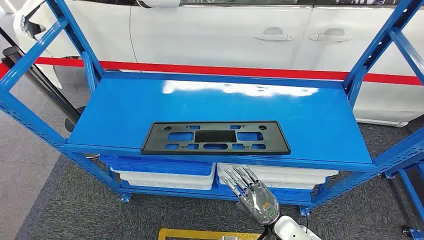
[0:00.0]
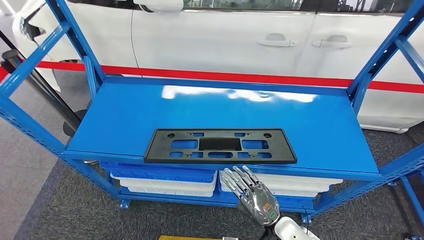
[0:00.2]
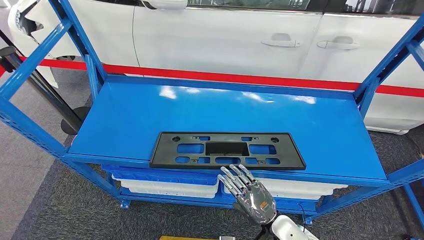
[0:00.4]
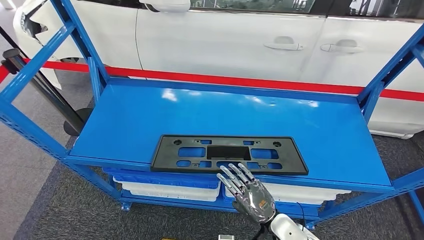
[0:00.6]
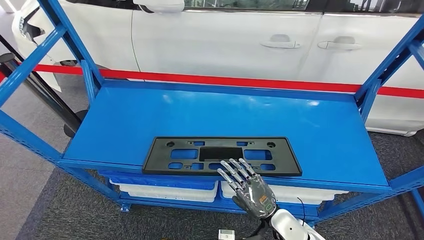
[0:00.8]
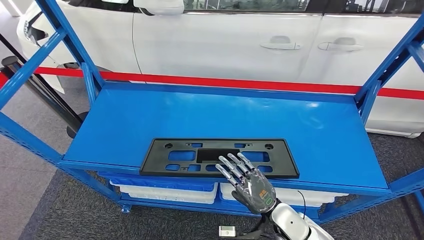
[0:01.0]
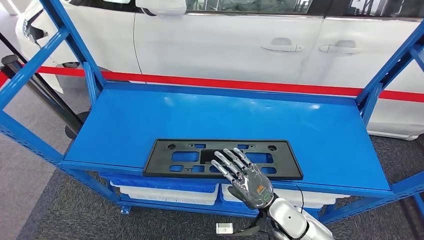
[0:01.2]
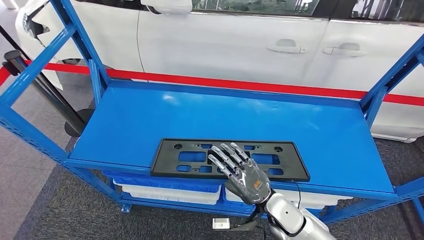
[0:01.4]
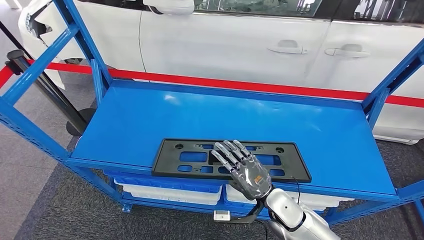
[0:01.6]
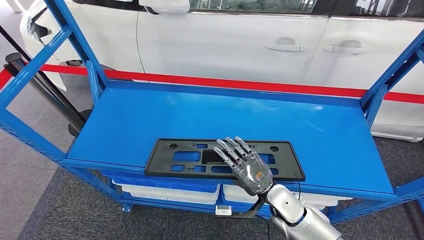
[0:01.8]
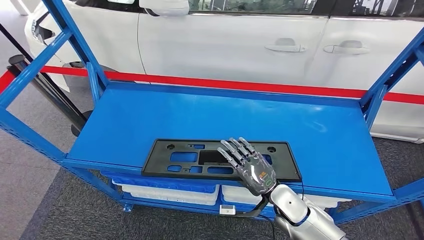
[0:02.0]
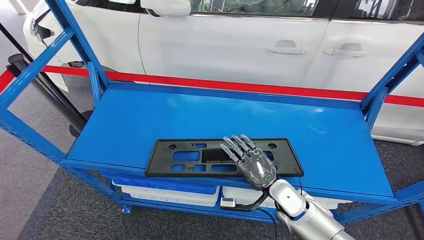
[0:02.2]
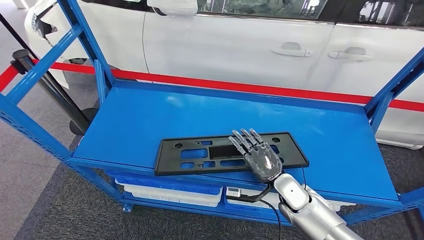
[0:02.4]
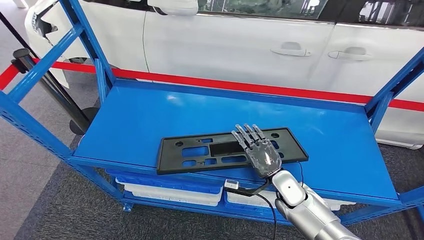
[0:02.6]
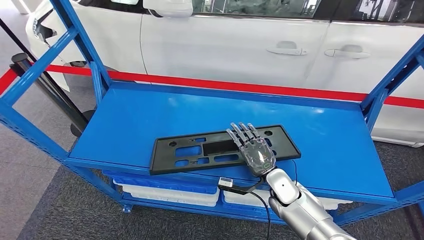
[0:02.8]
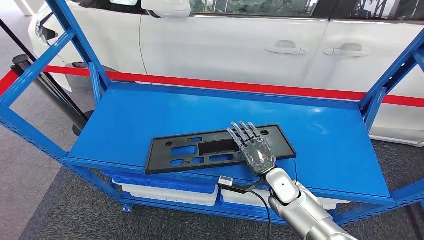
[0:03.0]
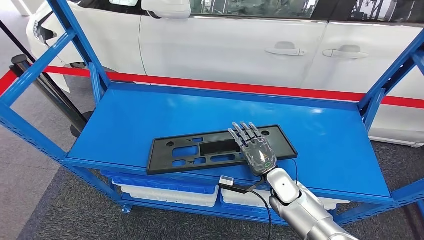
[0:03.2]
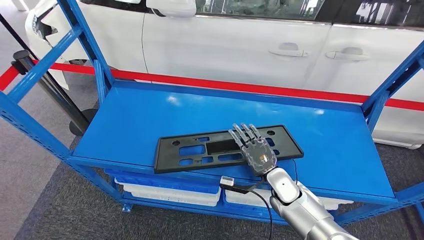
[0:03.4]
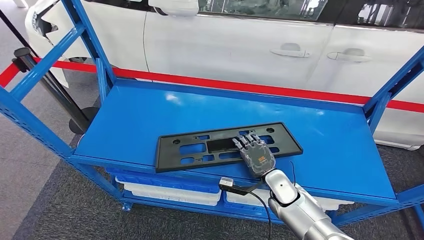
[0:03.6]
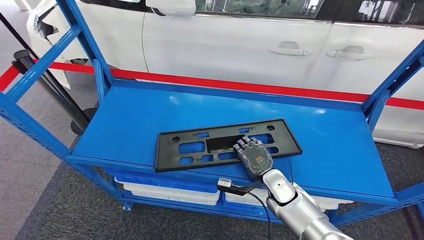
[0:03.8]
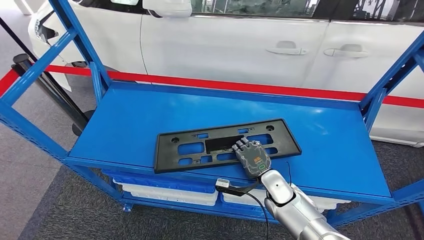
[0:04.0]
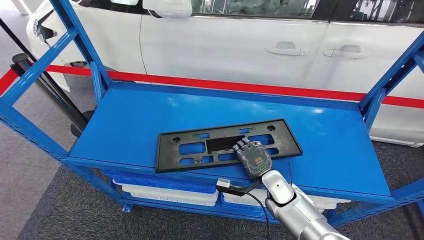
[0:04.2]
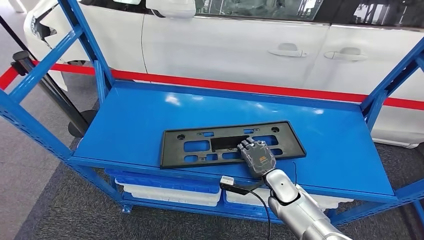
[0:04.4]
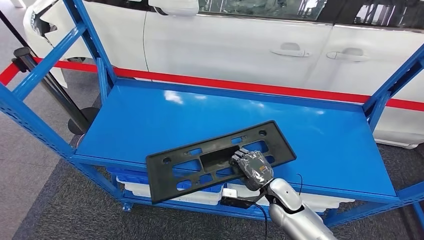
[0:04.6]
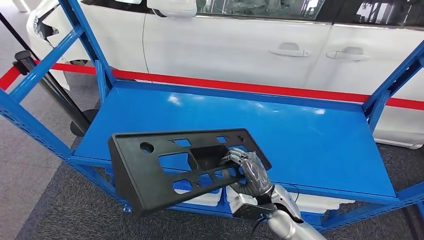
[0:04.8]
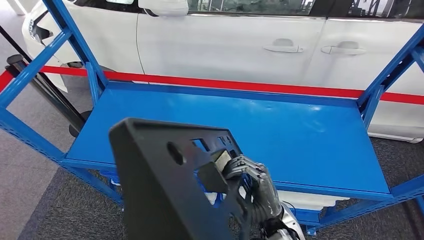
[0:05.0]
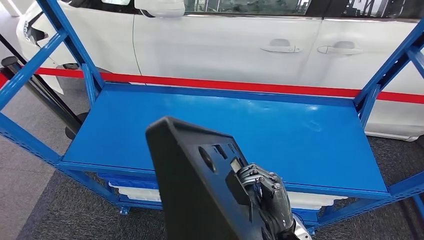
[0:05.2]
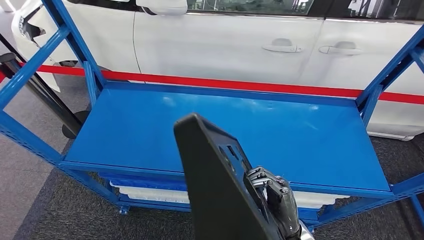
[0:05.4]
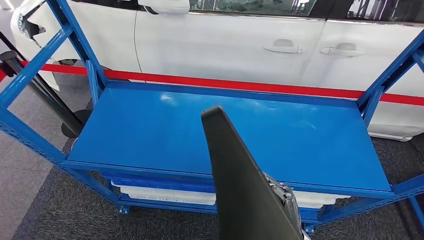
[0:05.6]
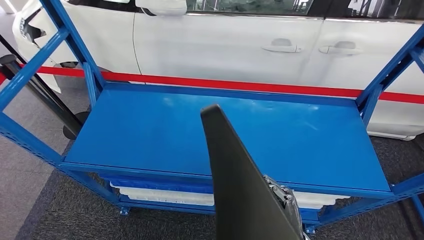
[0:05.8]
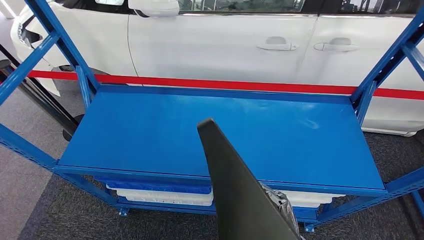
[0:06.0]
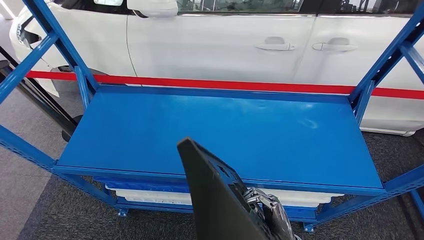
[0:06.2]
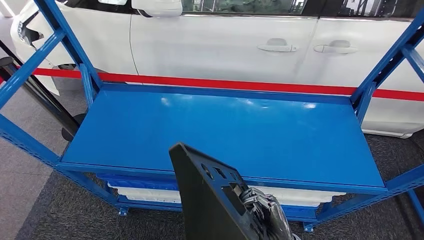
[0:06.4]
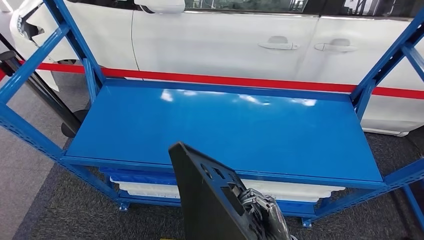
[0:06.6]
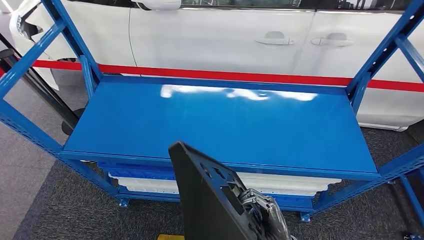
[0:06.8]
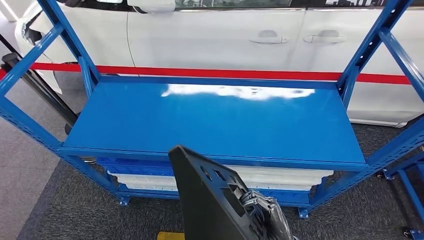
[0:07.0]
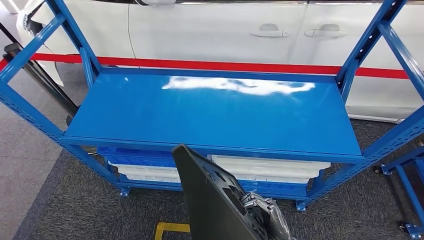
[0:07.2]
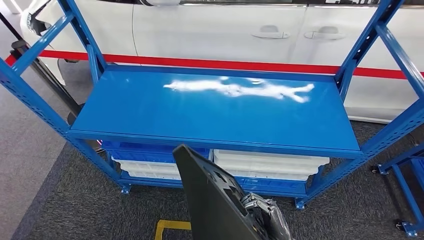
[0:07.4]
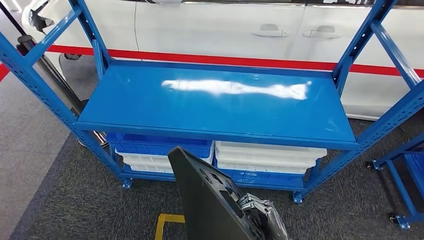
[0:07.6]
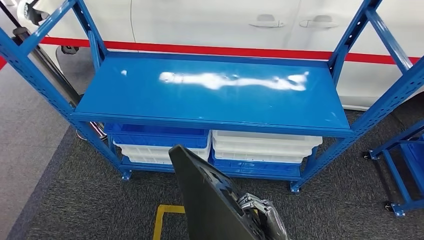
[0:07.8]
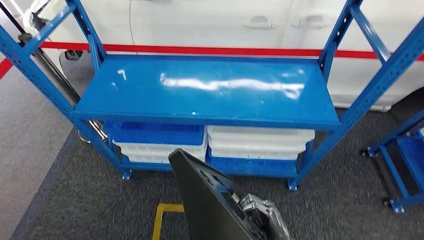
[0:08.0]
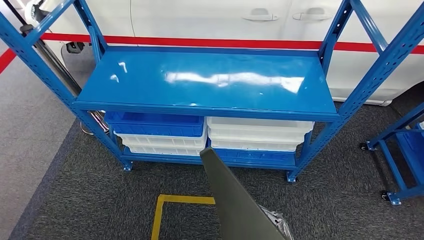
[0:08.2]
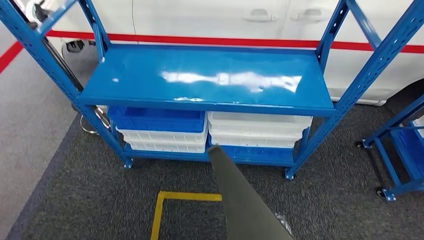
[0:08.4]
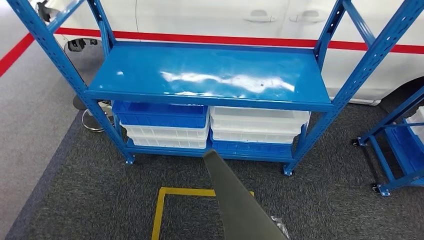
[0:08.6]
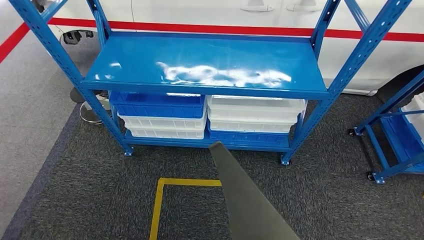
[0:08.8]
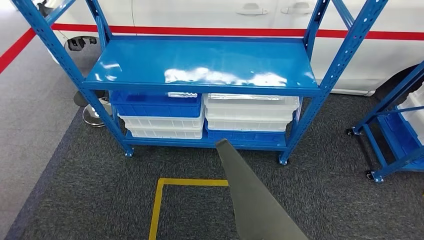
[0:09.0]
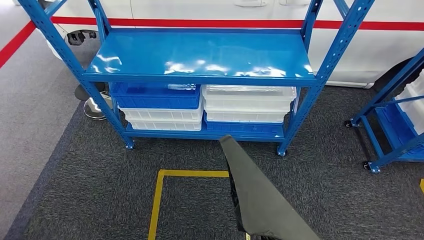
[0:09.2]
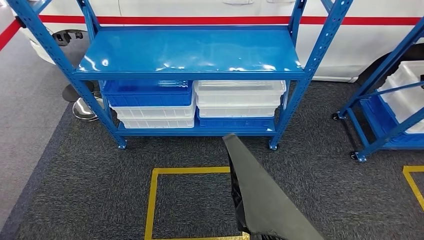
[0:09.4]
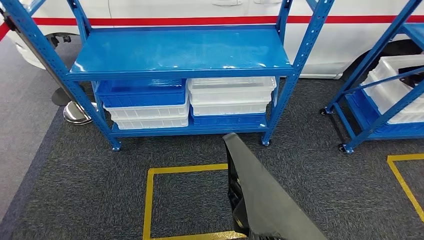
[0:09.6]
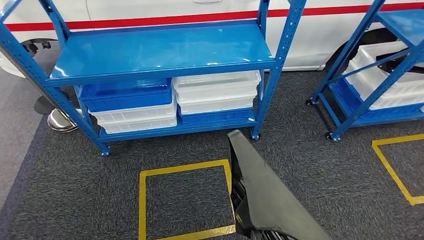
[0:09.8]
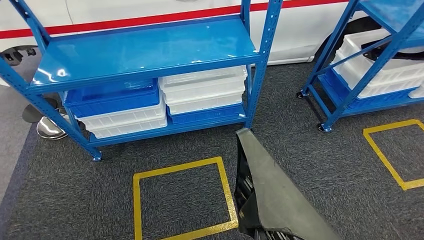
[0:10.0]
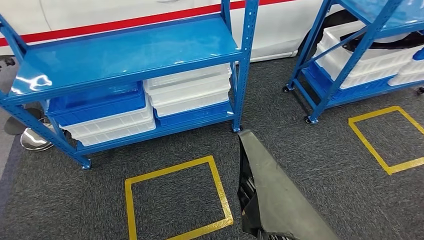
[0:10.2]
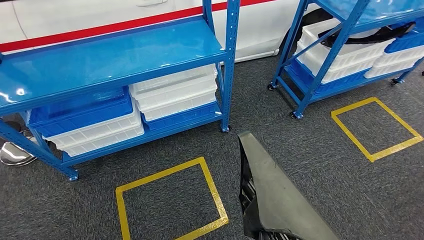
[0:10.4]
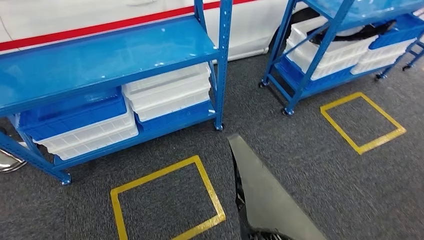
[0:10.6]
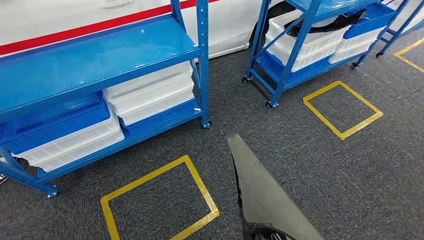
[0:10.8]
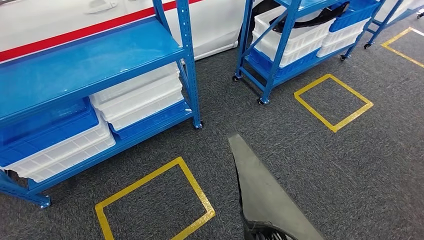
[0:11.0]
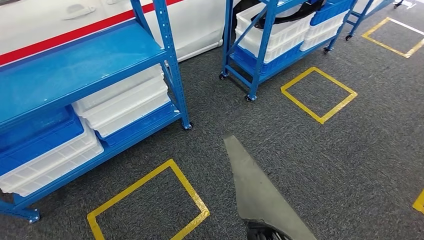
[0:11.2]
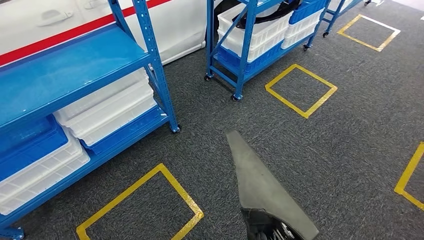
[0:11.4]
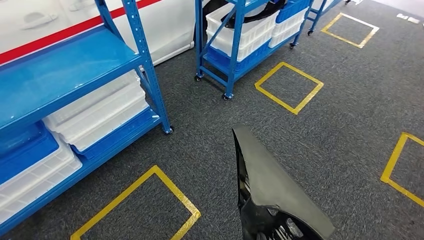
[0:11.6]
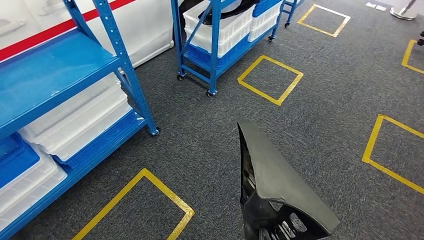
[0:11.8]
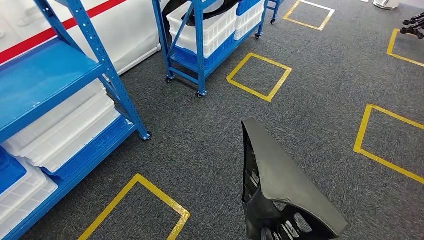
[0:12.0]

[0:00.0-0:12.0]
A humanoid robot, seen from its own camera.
Step, 0:00.0 to 0:06.4: Pick up the large material from the shelf.

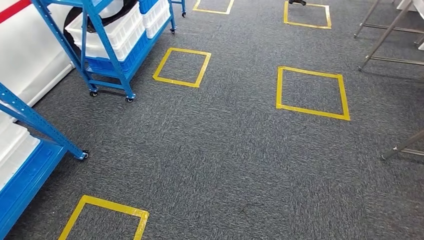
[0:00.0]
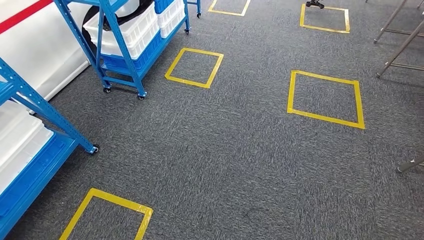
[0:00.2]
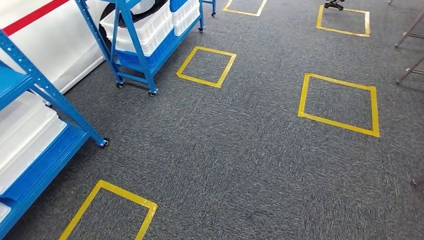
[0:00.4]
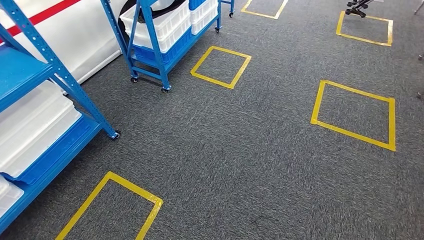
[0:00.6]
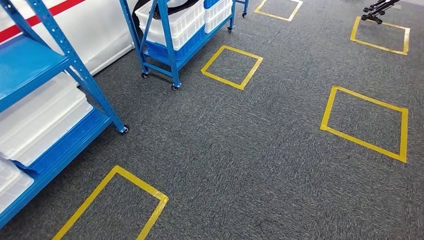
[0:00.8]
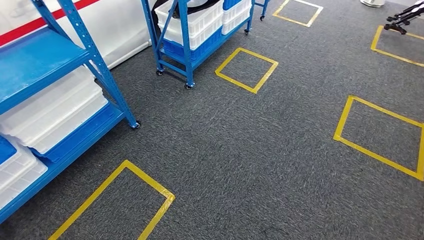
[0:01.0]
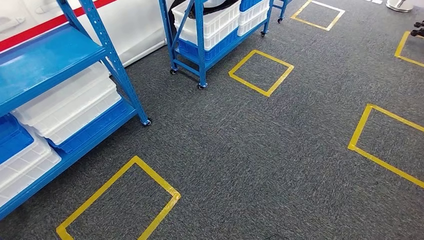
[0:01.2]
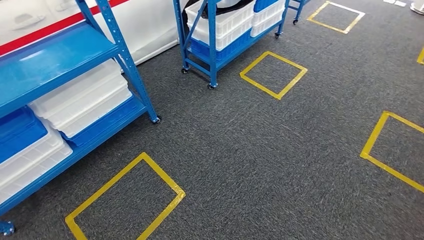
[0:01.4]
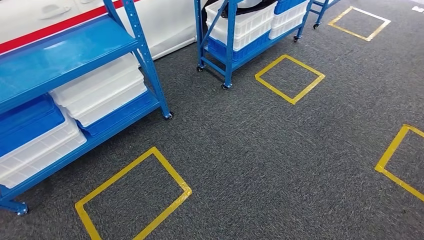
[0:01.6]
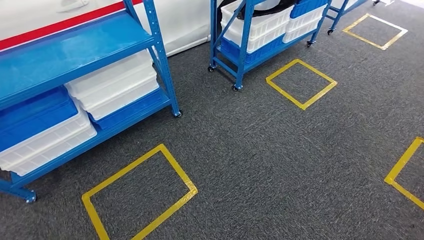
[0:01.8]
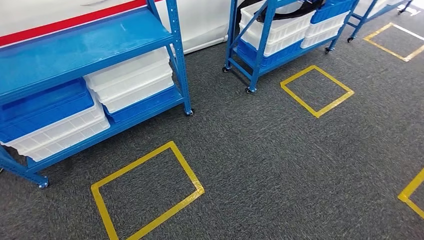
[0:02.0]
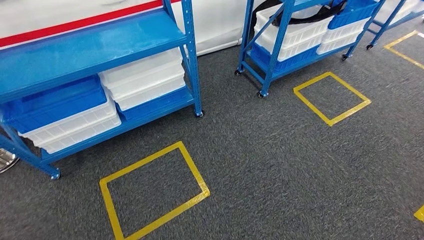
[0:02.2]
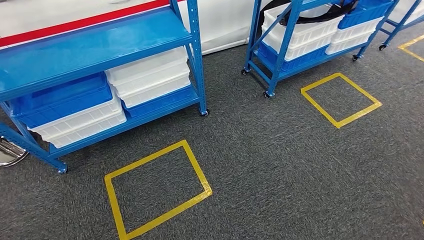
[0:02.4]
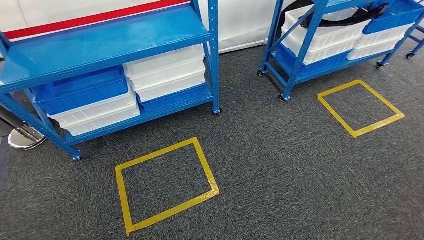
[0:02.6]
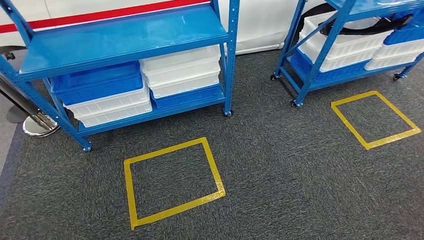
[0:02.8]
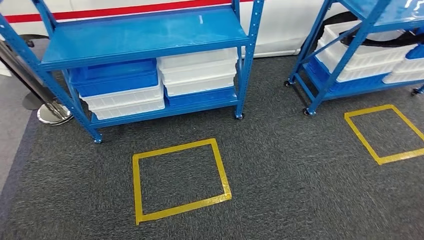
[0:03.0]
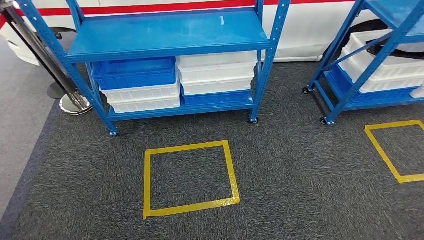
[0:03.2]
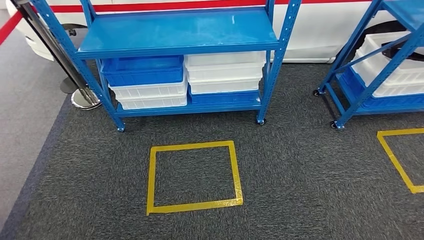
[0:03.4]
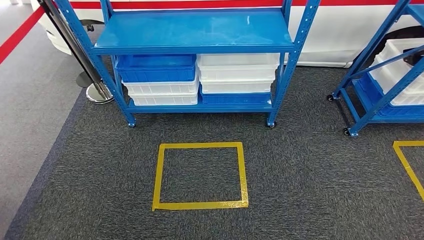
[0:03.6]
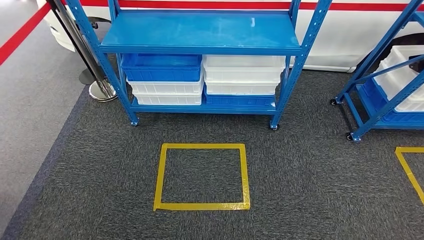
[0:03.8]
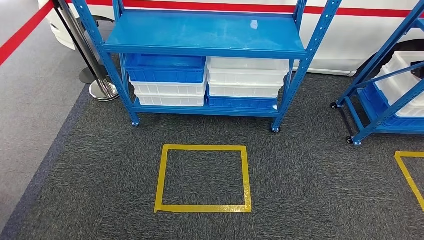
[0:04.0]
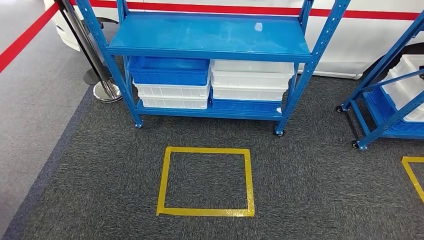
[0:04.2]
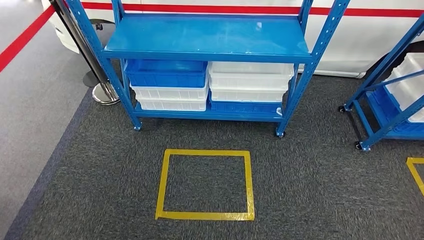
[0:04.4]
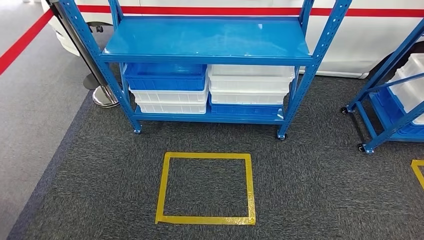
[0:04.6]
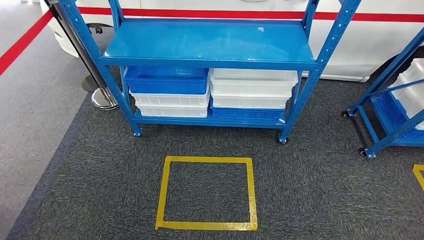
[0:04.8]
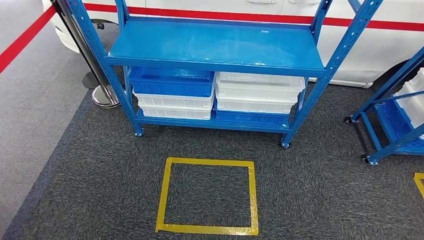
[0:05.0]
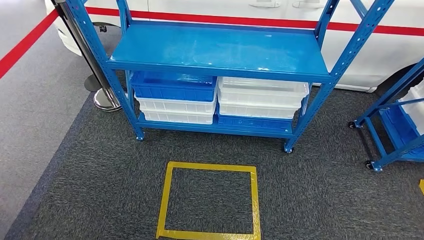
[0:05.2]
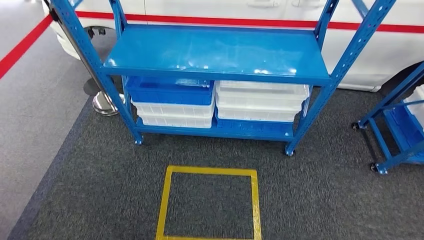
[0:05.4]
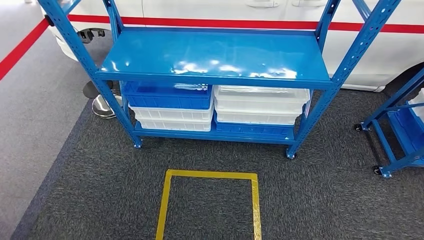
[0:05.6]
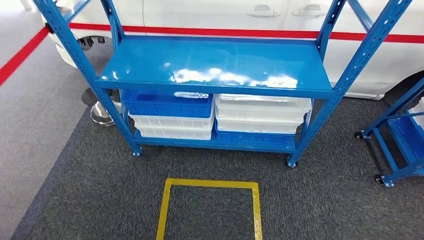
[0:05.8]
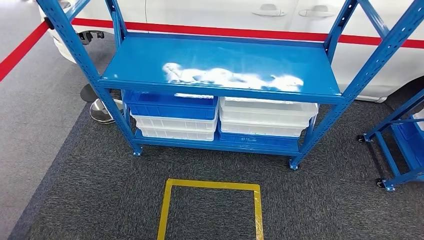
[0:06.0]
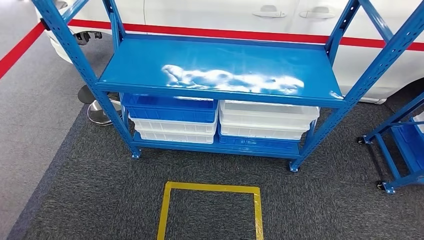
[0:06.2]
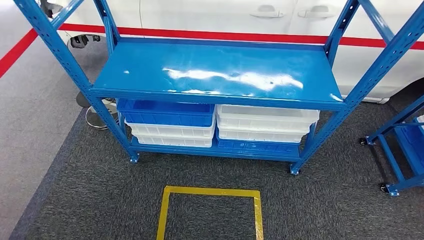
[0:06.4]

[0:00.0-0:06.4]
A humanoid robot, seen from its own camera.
Step, 0:00.0 to 0:06.4: Move to the initial position of the shelf.
